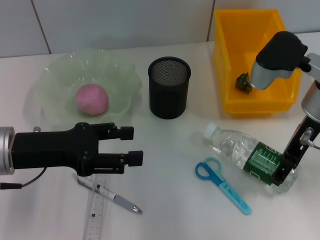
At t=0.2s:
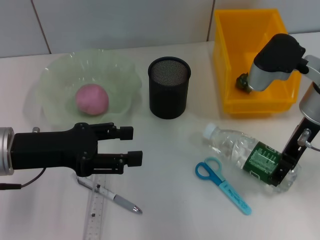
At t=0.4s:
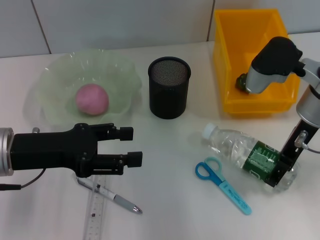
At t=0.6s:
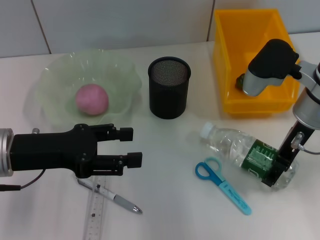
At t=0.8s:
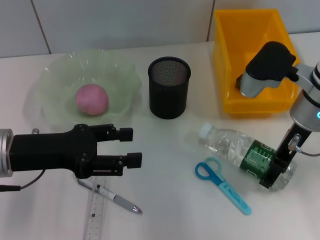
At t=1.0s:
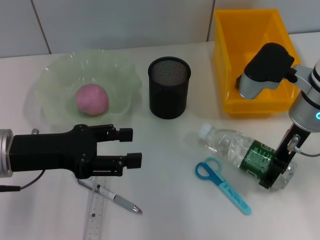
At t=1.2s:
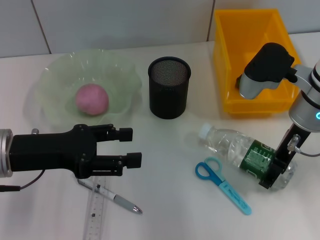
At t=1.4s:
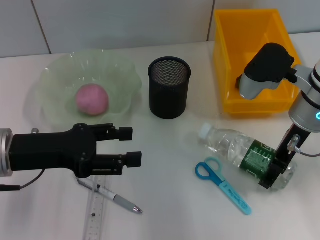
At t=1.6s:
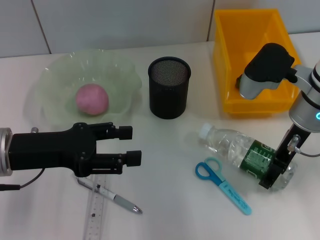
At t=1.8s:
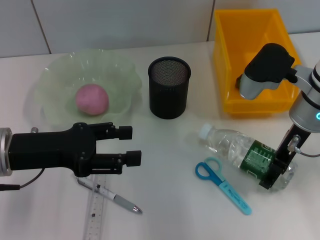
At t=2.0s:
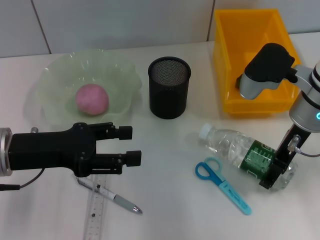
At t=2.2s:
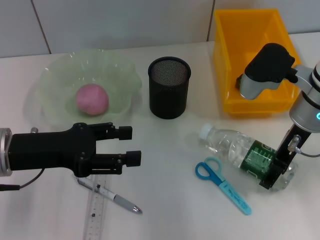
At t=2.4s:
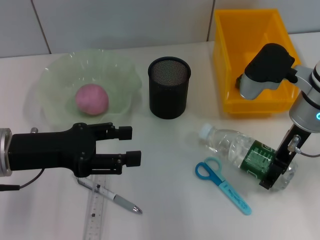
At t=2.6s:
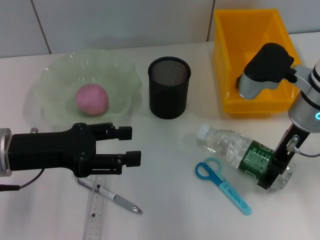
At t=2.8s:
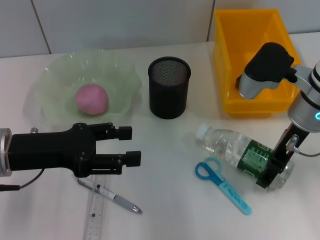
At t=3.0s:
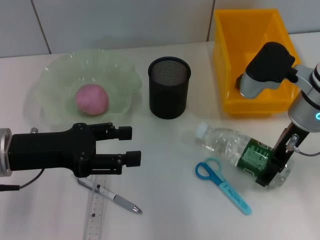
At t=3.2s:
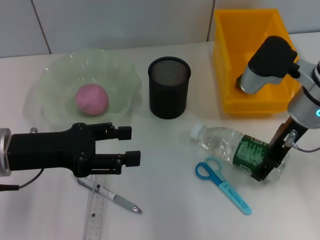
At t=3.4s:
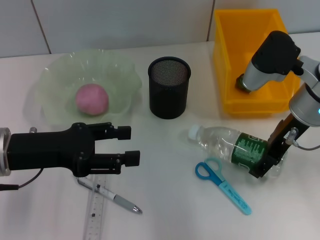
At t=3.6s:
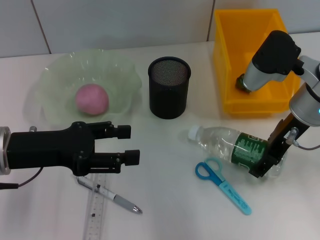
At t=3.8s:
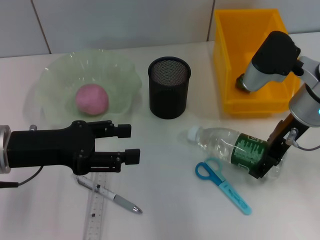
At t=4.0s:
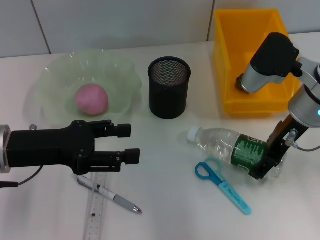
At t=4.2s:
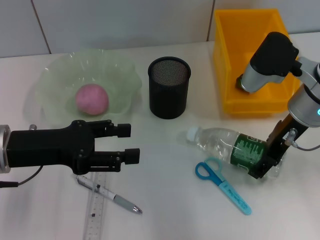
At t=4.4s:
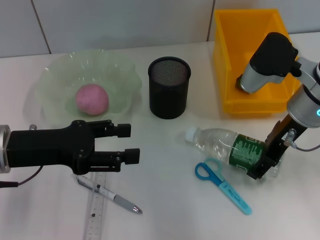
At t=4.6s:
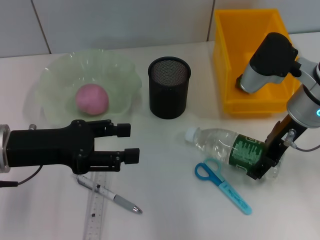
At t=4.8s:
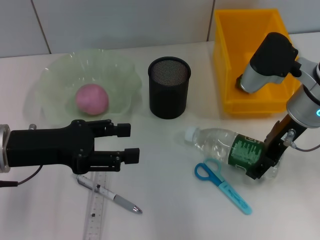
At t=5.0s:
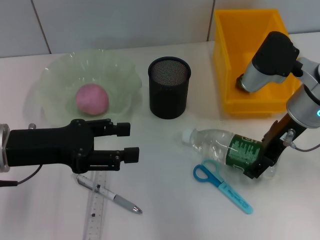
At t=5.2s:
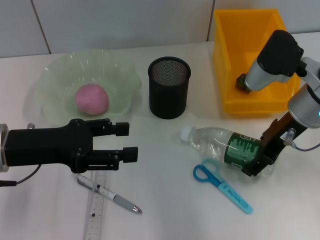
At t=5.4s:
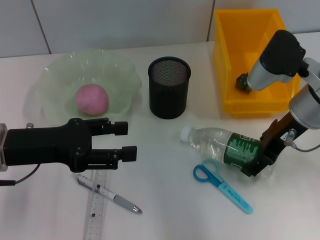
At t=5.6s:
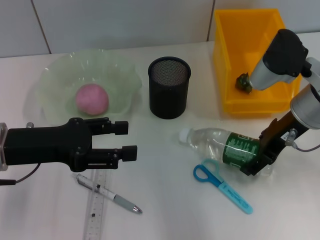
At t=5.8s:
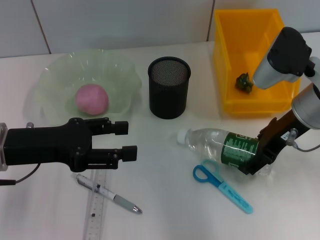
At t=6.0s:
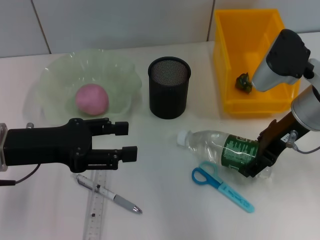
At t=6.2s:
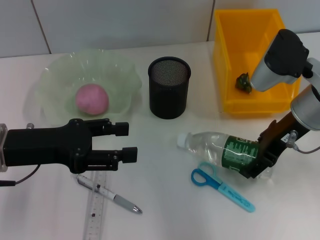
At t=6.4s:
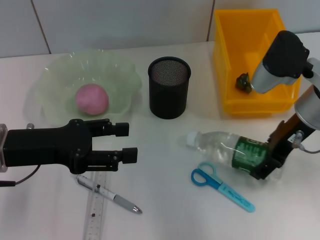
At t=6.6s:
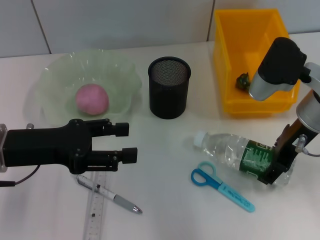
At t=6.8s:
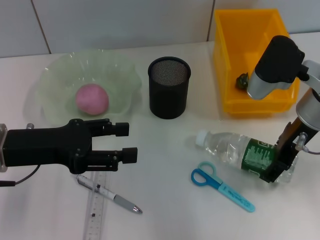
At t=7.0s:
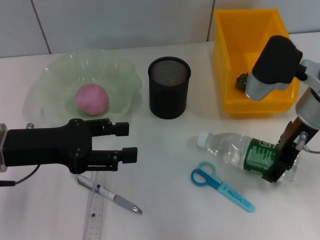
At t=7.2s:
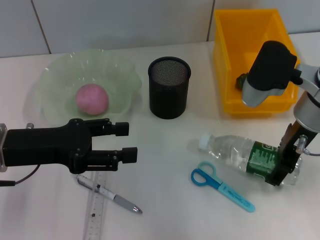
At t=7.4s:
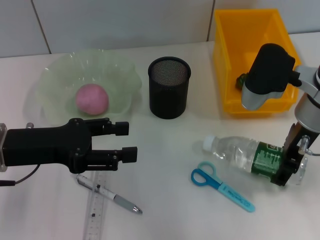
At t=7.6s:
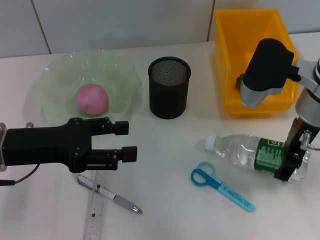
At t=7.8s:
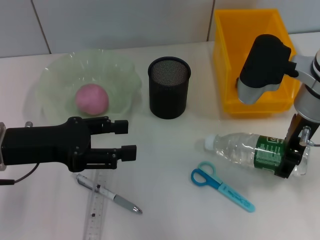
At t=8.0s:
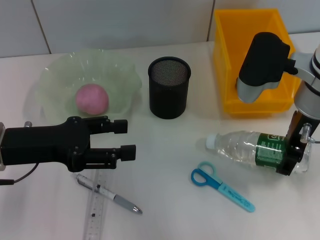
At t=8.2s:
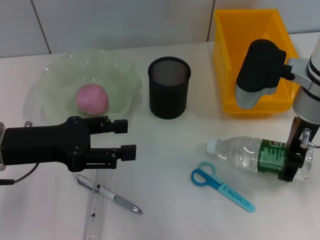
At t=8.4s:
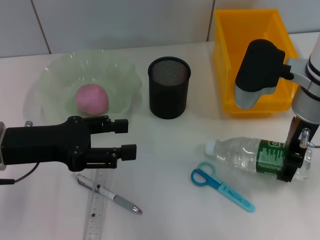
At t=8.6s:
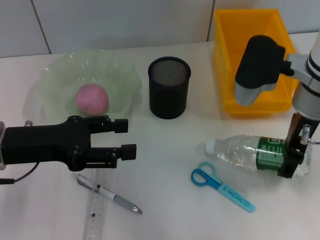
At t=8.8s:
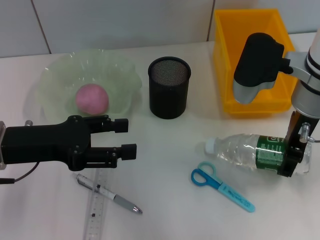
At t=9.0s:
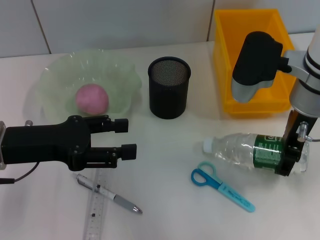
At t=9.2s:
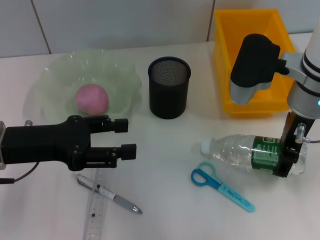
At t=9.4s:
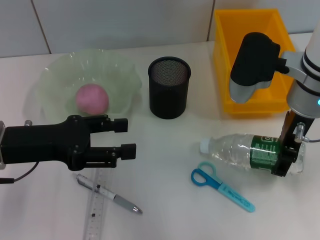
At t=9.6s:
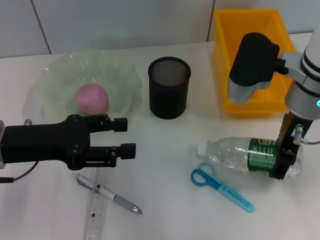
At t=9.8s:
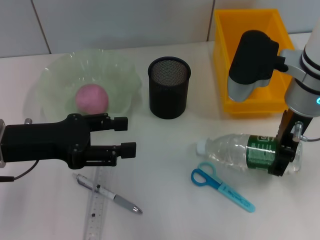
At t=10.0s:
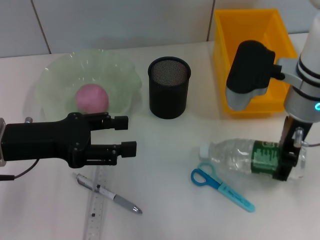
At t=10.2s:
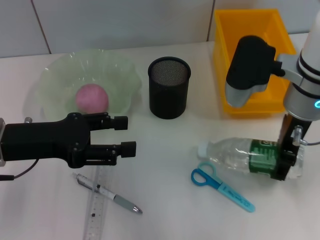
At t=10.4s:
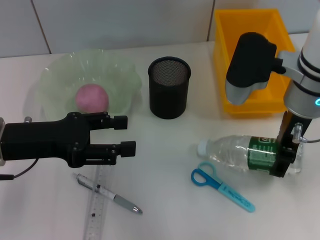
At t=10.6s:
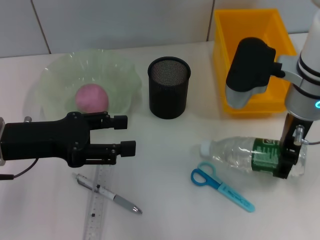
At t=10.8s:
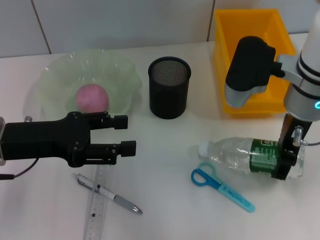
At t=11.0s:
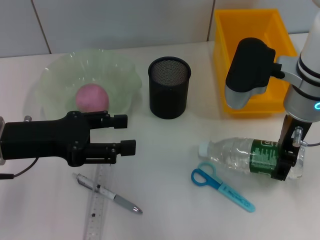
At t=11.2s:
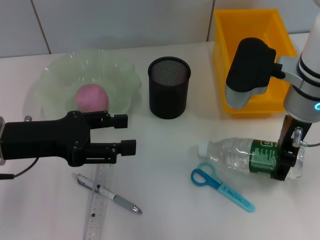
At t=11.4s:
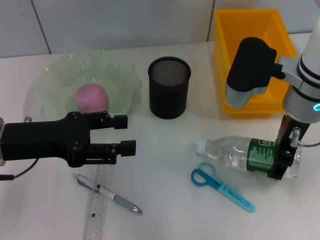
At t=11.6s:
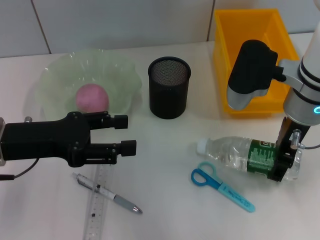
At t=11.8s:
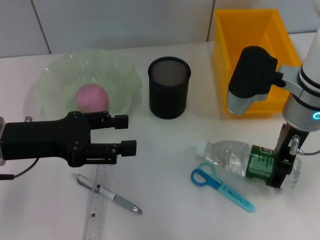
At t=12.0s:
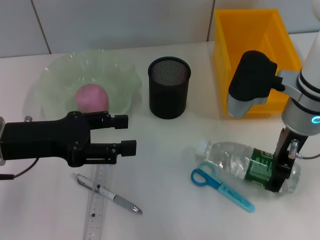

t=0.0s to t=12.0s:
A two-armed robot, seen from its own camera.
Step, t=0.0s to t=3.0s: Grab the water bottle with the right hand.
t=0.0s to t=1.6s: The grippers stay close to where they were, moving slightly.
t=1.6s to t=3.0s: The two grippers keep their place.
t=3.0s to t=6.0s: The grippers make only small movements.
t=7.6s to t=9.0s: The grippers stay close to where they were, moving slightly.
t=9.0s to t=10.4s: The two grippers keep their place.
t=10.4s to t=12.0s: The grippers make only small movements.

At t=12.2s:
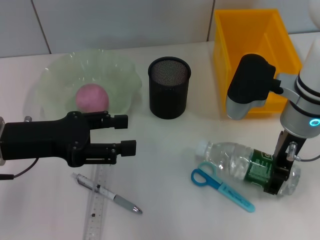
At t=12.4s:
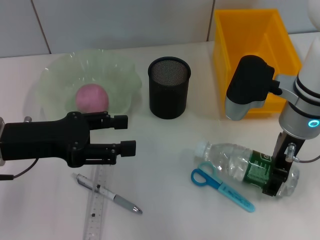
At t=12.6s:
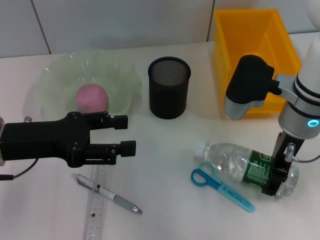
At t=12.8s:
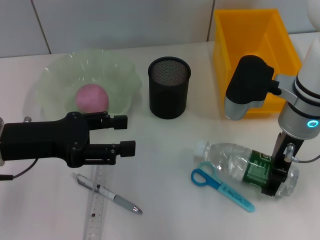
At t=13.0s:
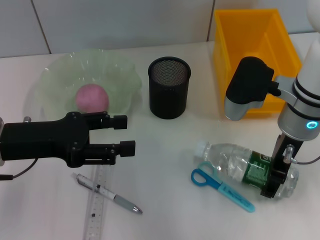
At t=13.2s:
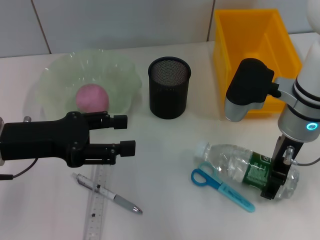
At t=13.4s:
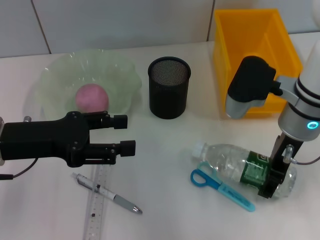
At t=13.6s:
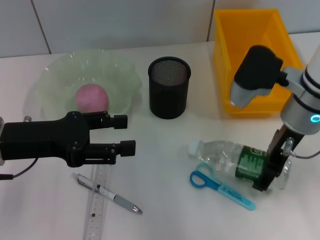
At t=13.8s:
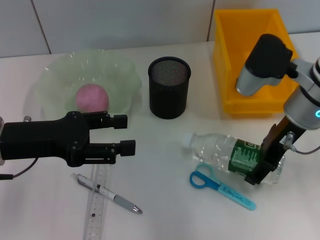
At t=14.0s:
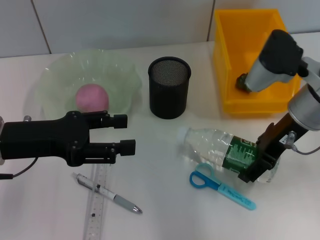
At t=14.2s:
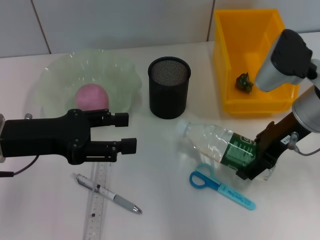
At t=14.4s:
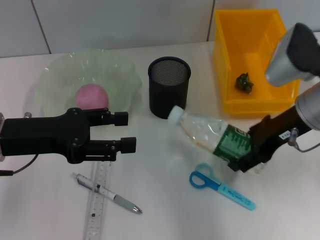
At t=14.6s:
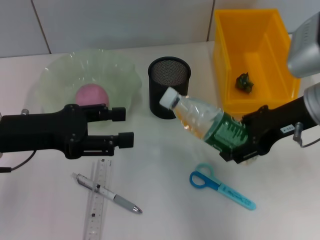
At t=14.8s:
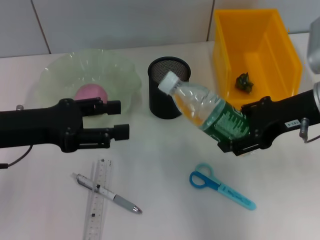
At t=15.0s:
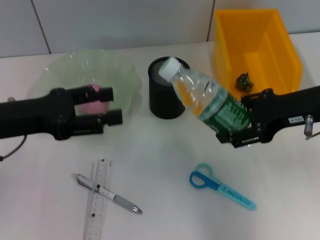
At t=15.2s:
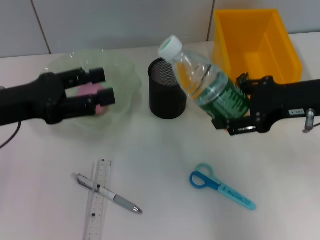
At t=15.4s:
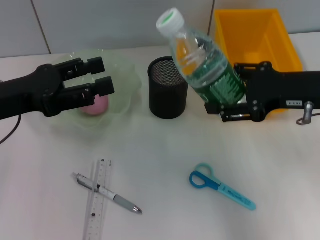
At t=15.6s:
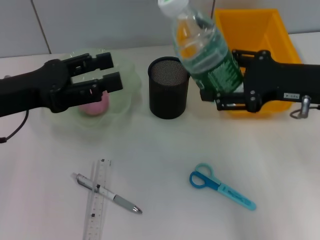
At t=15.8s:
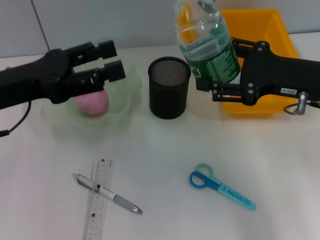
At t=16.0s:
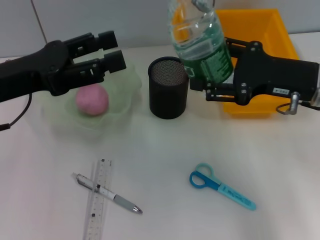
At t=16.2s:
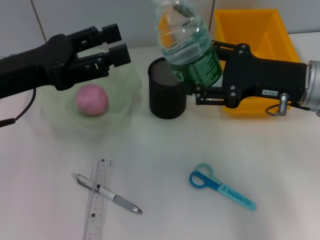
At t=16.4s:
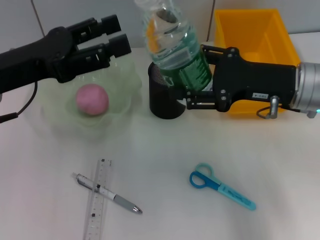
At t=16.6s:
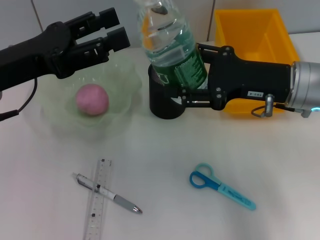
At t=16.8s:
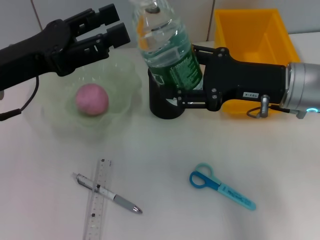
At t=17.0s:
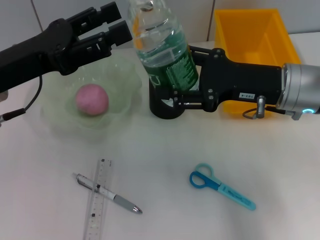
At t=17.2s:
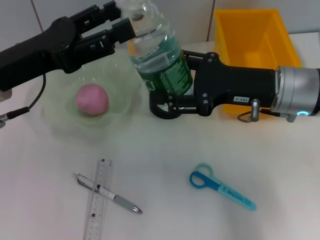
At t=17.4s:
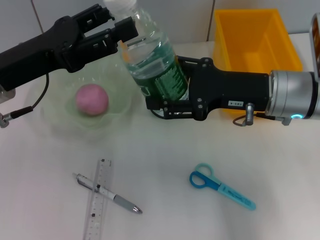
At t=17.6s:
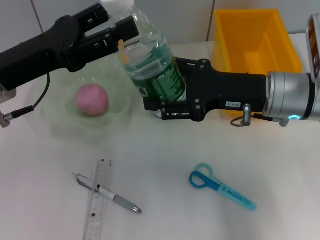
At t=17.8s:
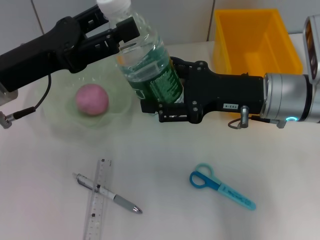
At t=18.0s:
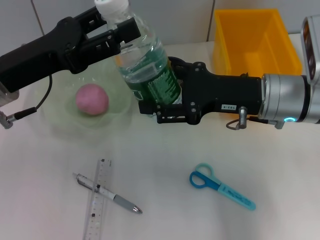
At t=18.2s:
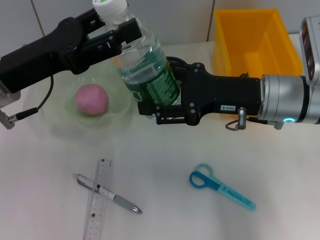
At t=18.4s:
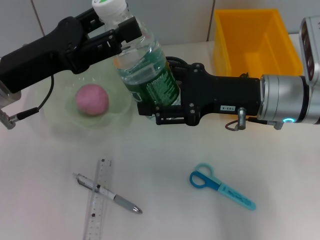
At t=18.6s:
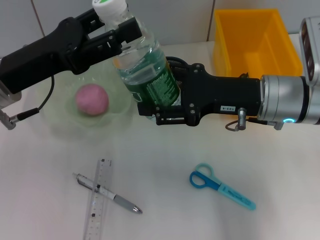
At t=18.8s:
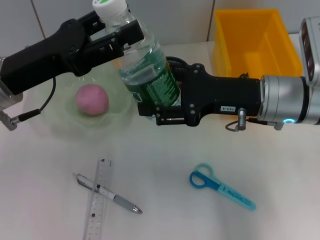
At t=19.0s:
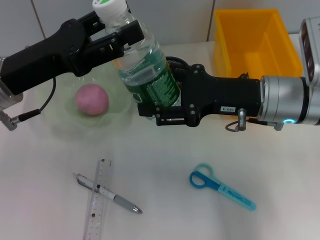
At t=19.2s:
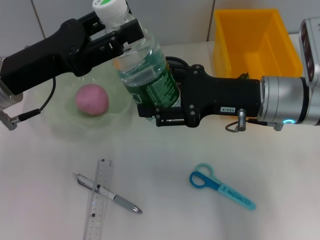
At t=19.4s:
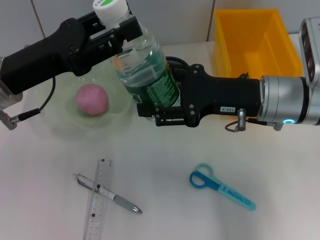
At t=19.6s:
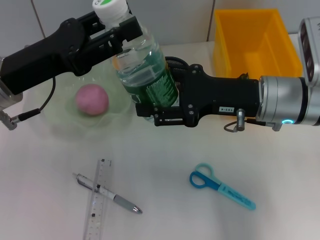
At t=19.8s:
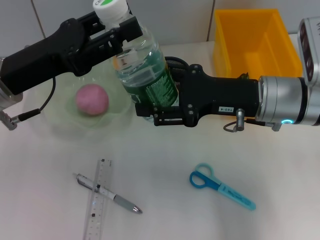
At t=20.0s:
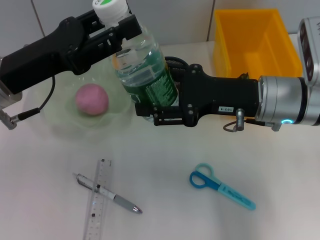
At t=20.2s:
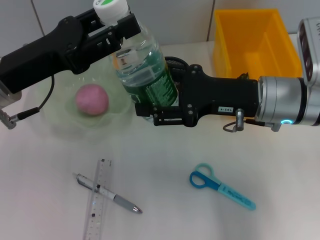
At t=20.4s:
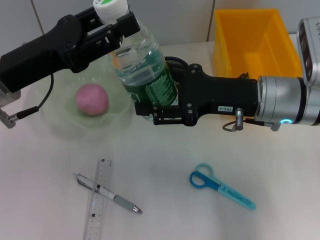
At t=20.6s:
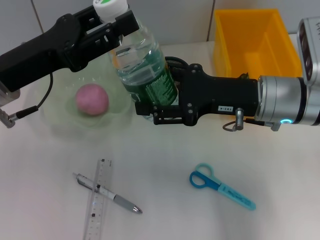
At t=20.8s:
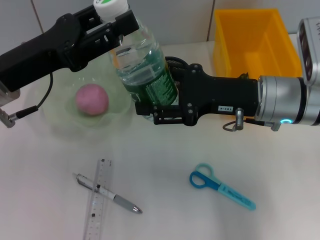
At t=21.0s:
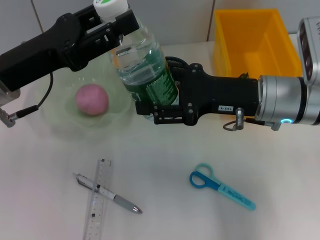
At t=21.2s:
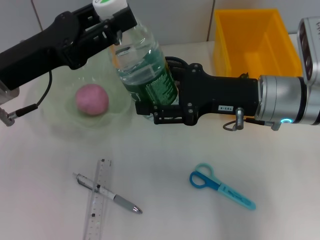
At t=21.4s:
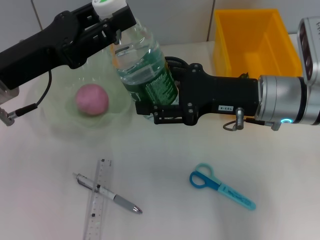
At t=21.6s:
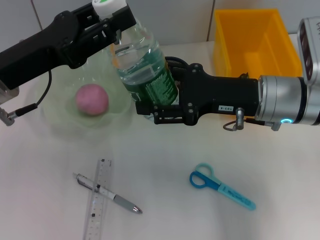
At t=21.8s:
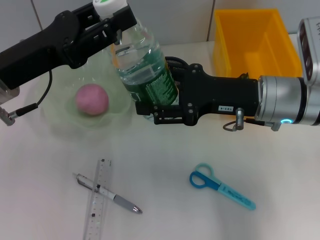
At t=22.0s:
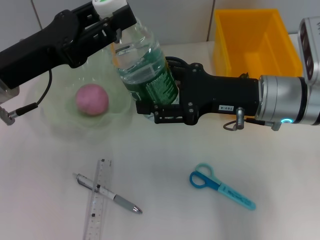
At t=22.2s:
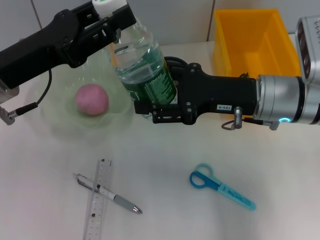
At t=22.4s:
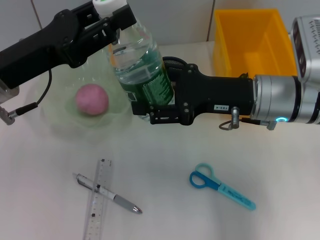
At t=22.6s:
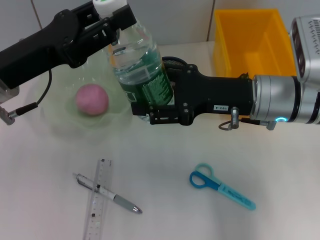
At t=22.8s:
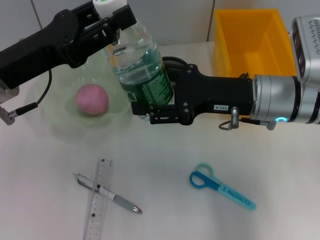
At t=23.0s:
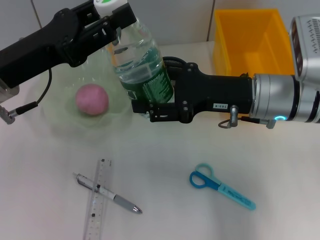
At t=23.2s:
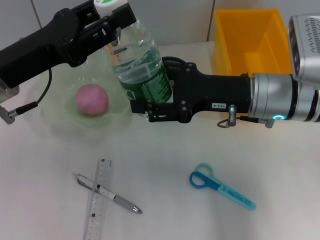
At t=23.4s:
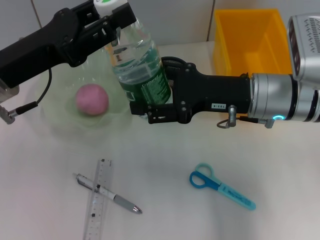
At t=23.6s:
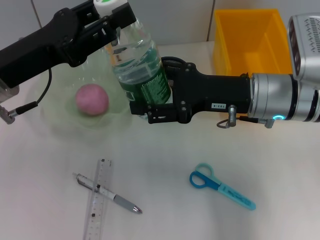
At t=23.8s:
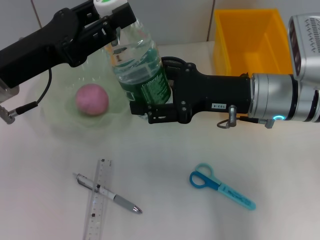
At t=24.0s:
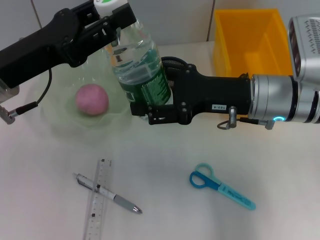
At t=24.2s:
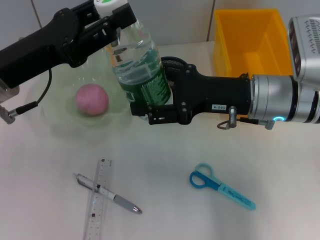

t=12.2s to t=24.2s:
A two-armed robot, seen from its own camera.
t=12.2s to t=13.8s: The grippers move only a little.
t=13.8s to t=15.2s: The right gripper moves to the right, approximately 5 cm.
t=16.6s to t=18.2s: The grippers make only small movements.
t=18.2s to t=24.2s: Neither gripper changes place.
